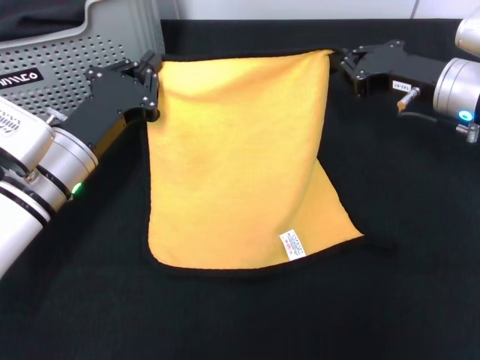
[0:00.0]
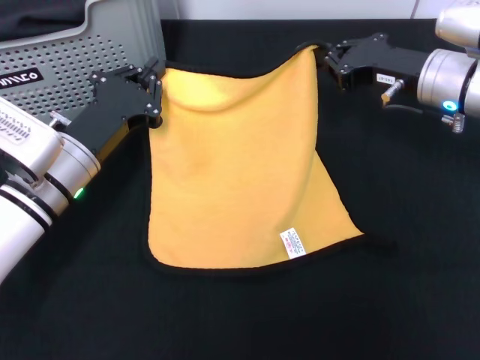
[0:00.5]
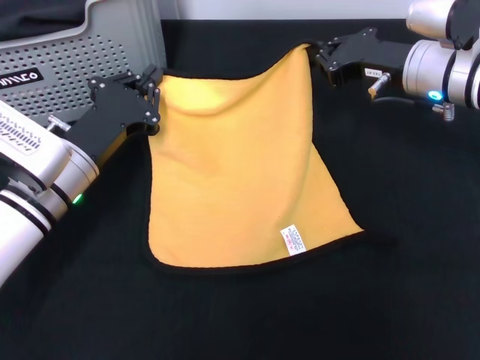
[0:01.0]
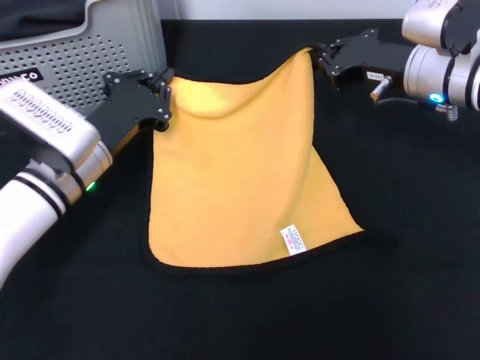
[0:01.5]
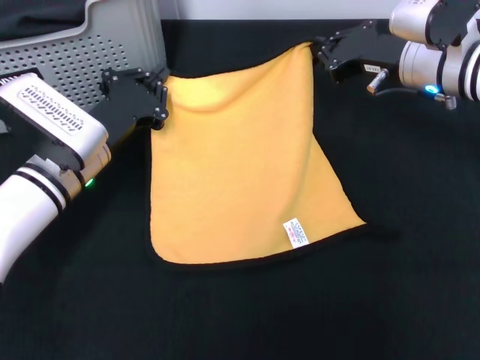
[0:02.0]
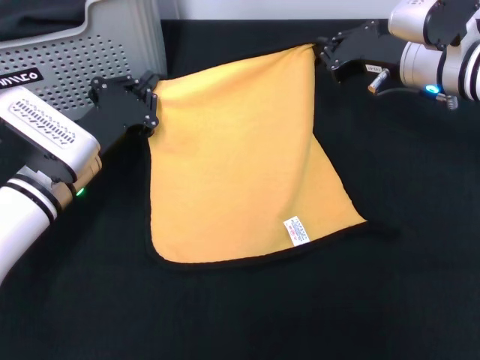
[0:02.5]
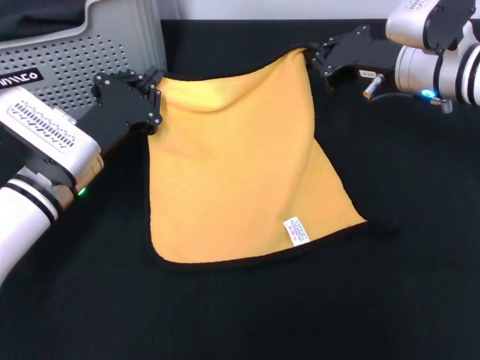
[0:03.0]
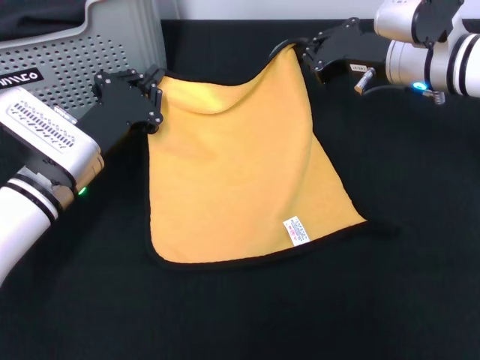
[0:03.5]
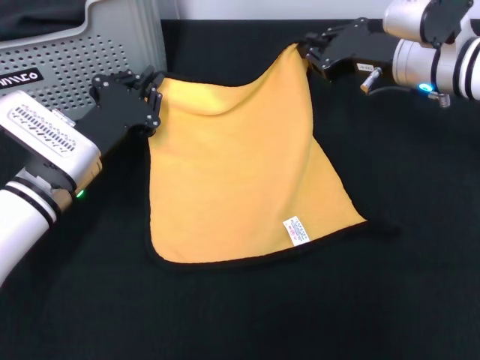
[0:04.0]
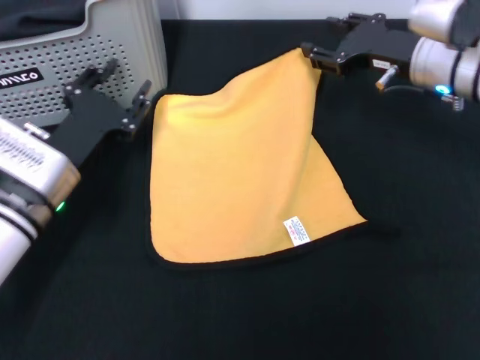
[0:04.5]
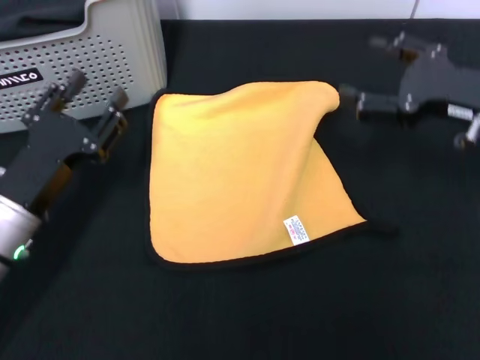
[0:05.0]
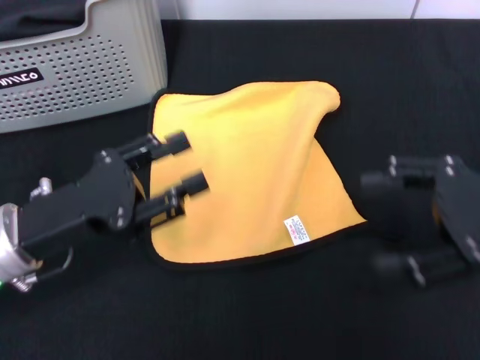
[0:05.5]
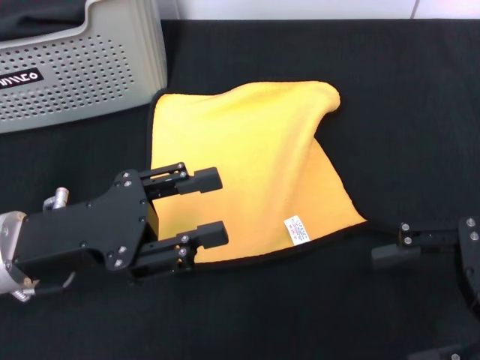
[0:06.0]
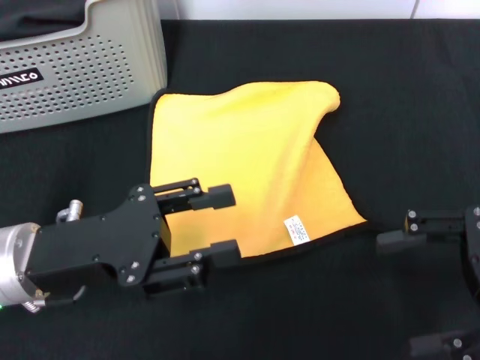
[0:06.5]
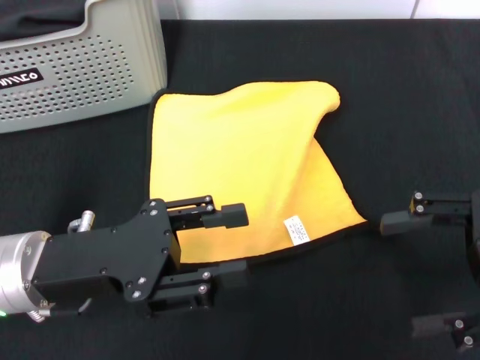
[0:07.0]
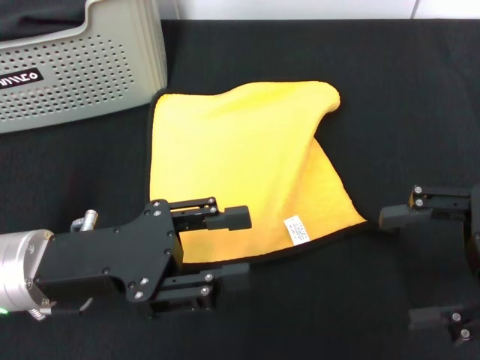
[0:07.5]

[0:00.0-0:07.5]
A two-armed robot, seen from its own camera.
Task of the whole recording: pick up the towel from the storage box and lay it flat on the black tablecloth.
Step, 0.0 to 4.5 s: Spread the towel flat with the right gripper.
2.0 to 4.0 s: The grippers move only a little.
4.0 to 5.5 s: The left gripper is displaced backward by some 10 cm, and opens its fingers. Meanwhile the right gripper shifts roughly 20 cm backward and to the right, and opens.

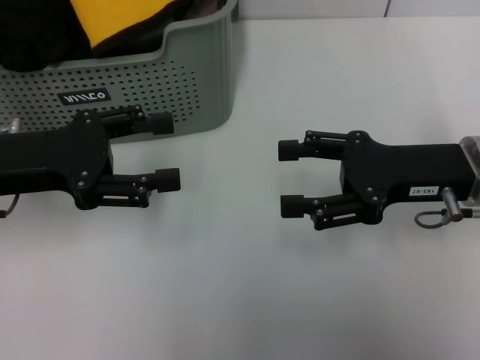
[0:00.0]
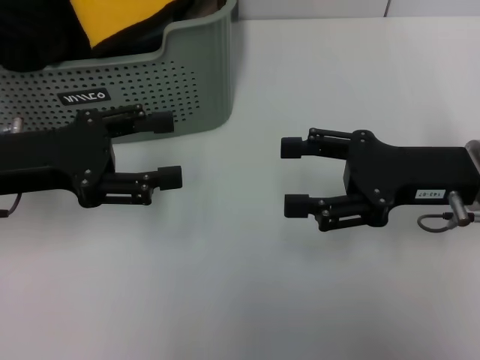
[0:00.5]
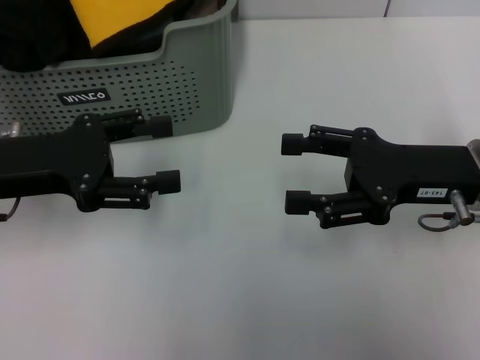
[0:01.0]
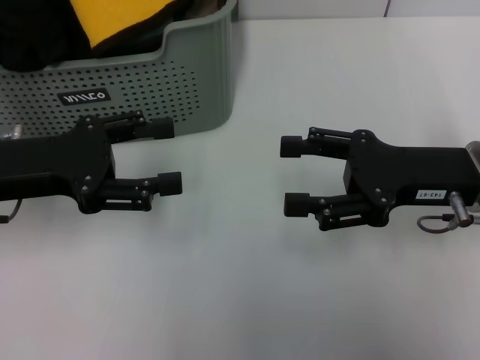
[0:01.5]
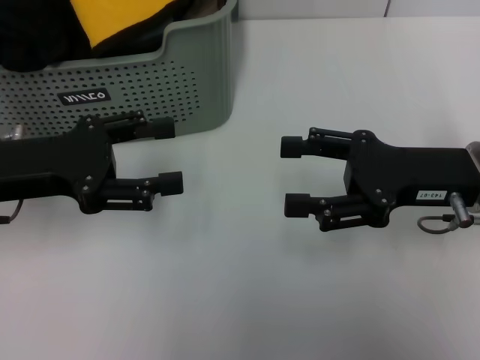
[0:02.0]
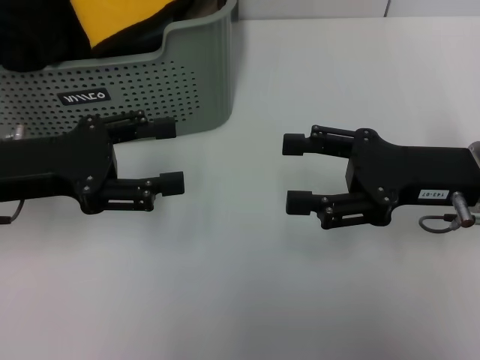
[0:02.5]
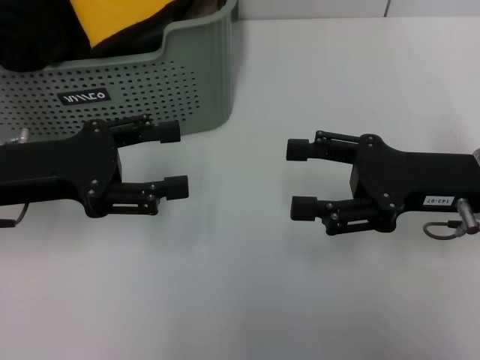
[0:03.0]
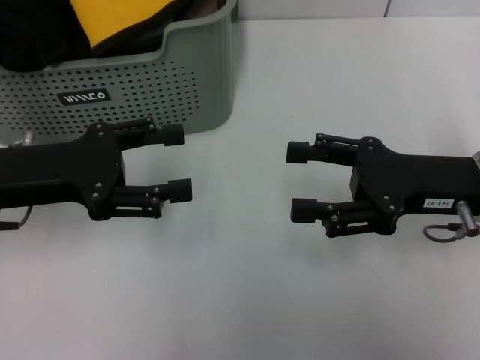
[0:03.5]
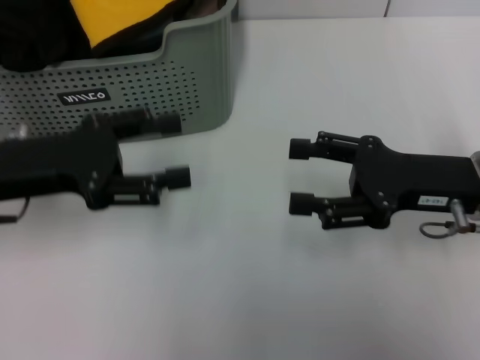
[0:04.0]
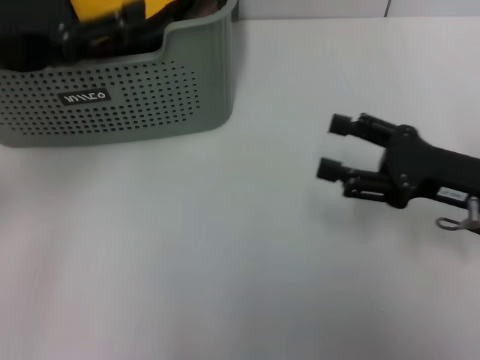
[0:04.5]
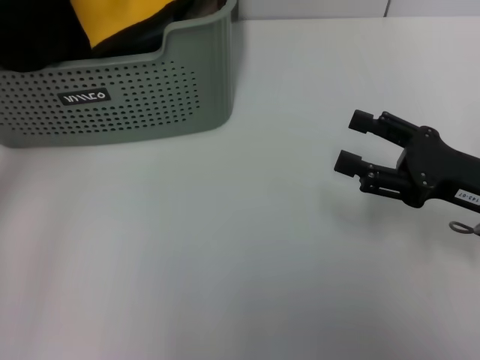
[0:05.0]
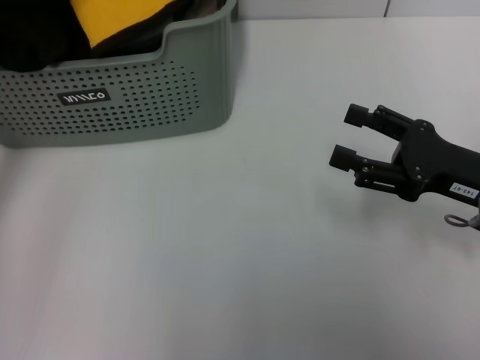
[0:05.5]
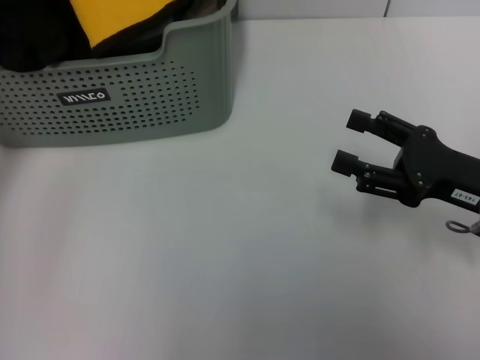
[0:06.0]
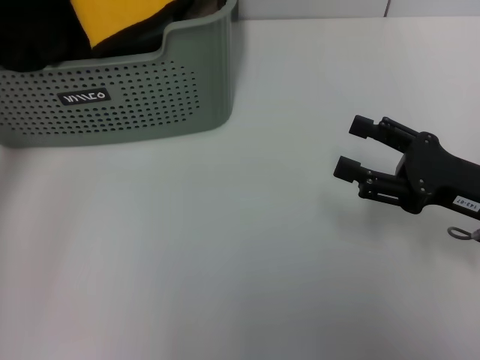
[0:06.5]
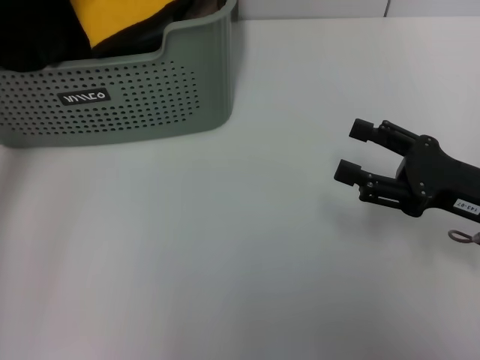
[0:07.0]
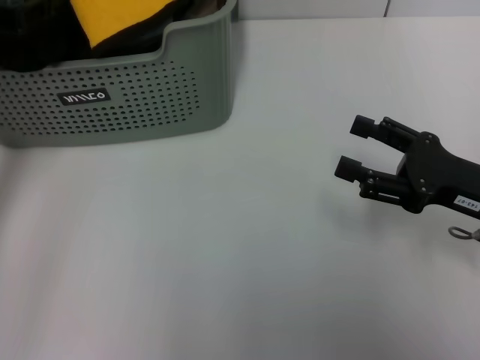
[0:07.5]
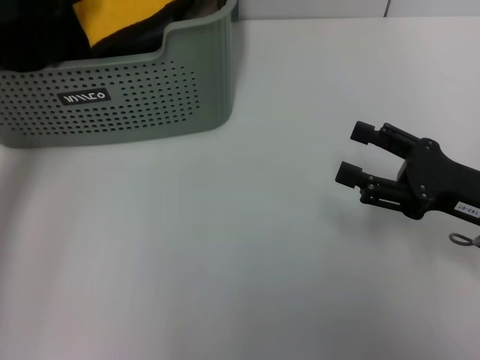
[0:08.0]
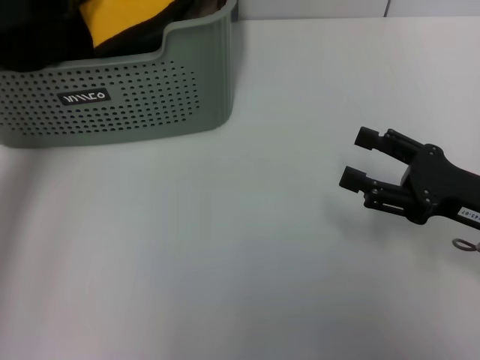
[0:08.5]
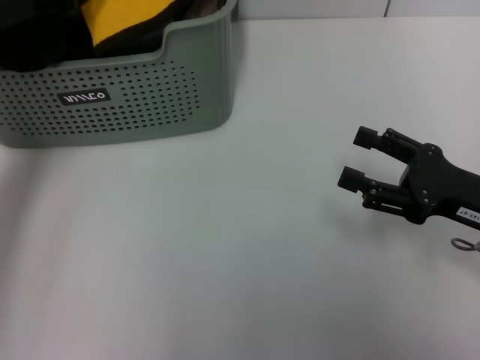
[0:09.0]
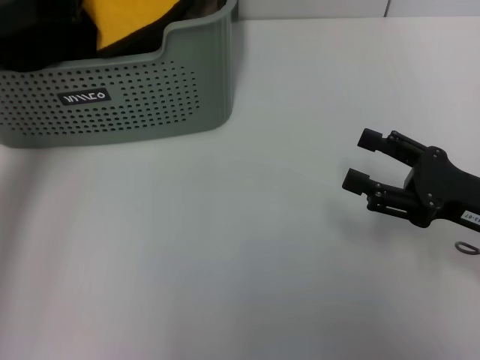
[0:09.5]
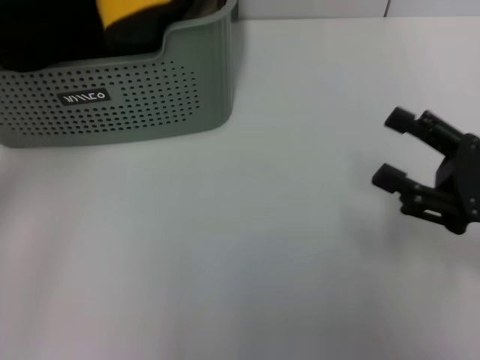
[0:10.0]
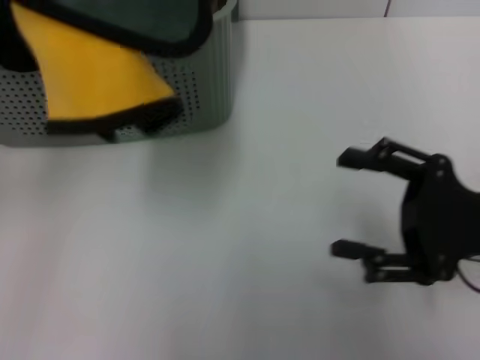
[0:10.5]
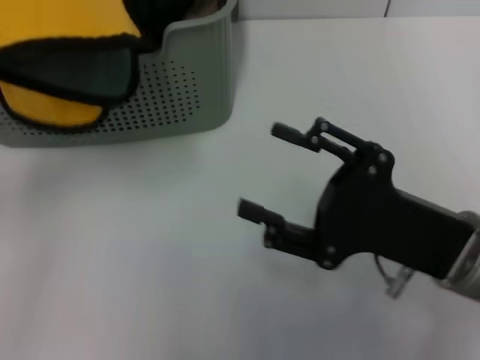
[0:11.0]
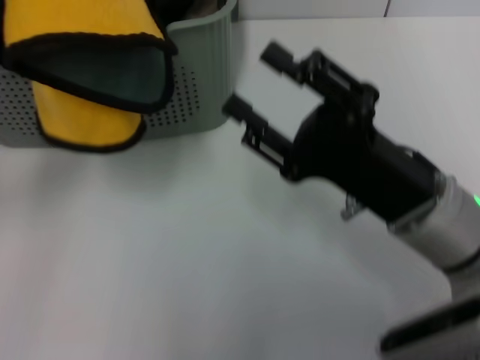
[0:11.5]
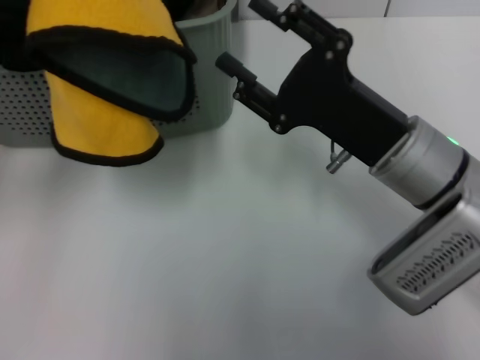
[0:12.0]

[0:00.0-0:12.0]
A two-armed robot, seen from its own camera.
Task of the whole recording: pick up the towel from the storage box and lay it flat on the table.
Step, 0.0 to 9.5 s: Pick up a towel with the left gripper.
0.0 to 2.0 s: Both grippers stay about where they are.
2.0 to 4.0 s: Both grippers stay put.
4.0 to 6.0 s: The left gripper travels upward and forward by some 10 cm.
6.0 to 8.0 s: The grippers stay close to where they were, moving slightly.
8.0 to 10.0 s: The left gripper closes.
10.0 to 12.0 s: The right gripper goes some 15 cm to the left.

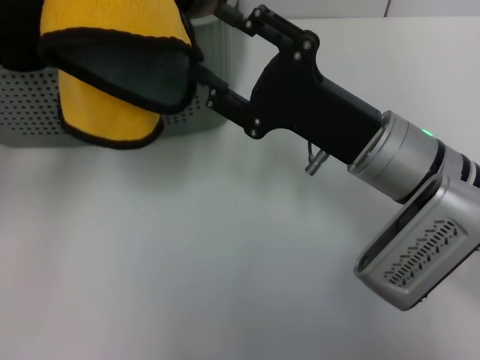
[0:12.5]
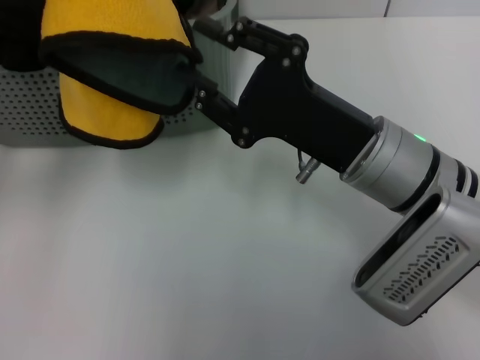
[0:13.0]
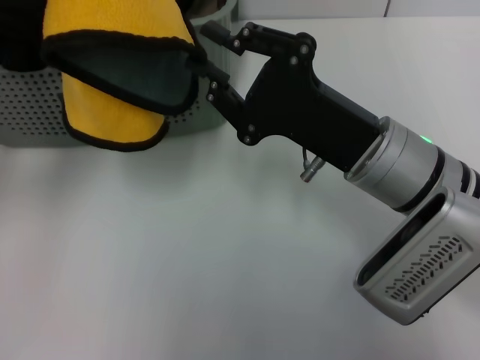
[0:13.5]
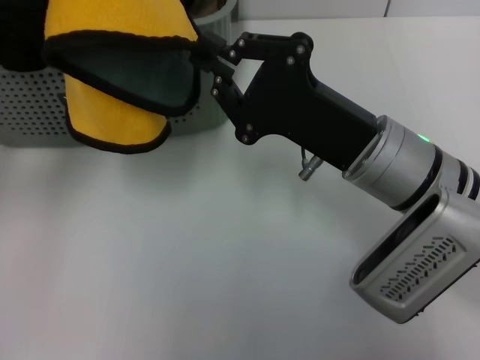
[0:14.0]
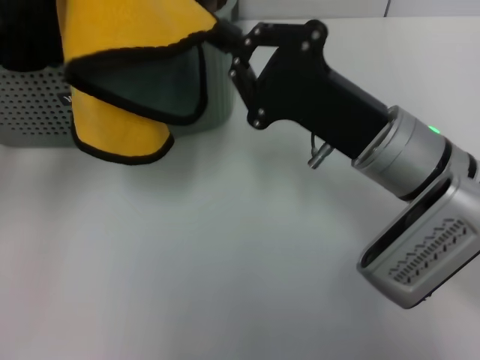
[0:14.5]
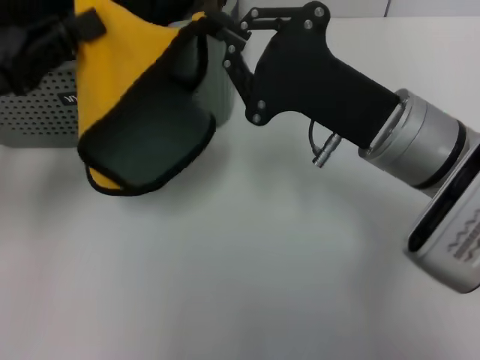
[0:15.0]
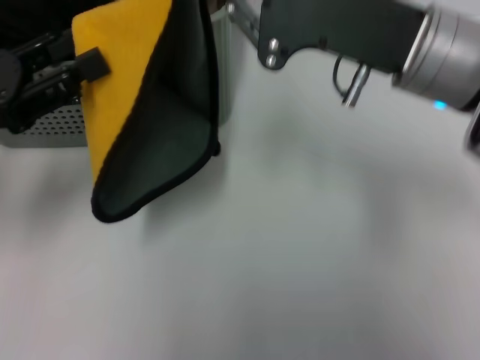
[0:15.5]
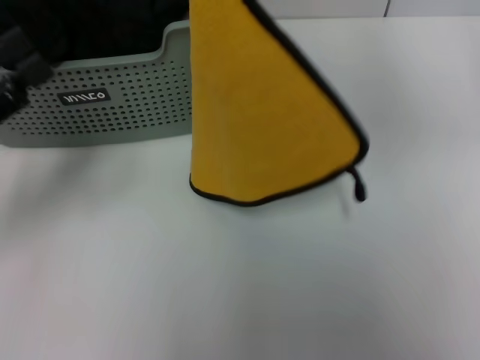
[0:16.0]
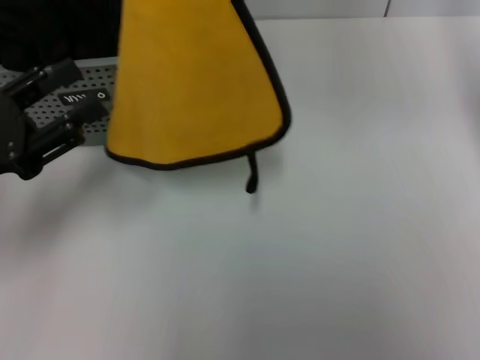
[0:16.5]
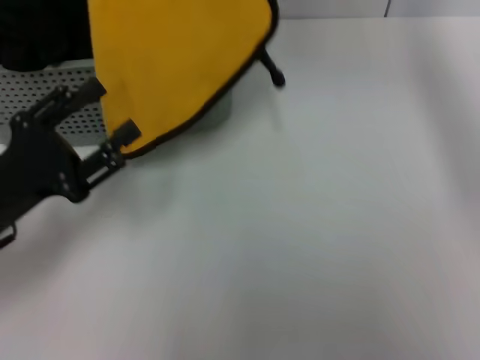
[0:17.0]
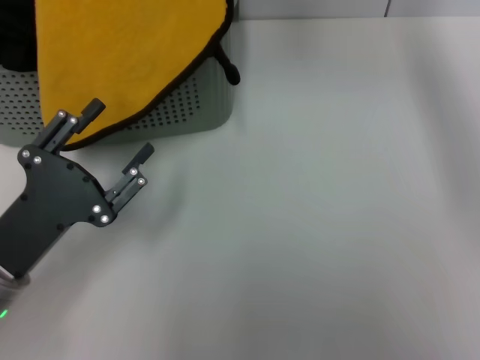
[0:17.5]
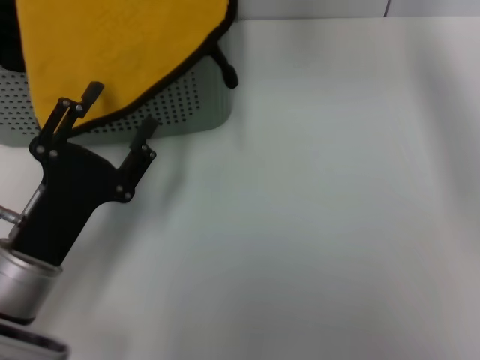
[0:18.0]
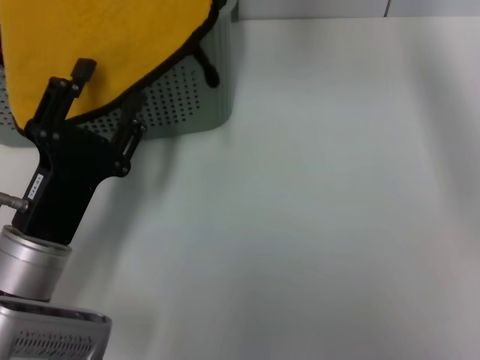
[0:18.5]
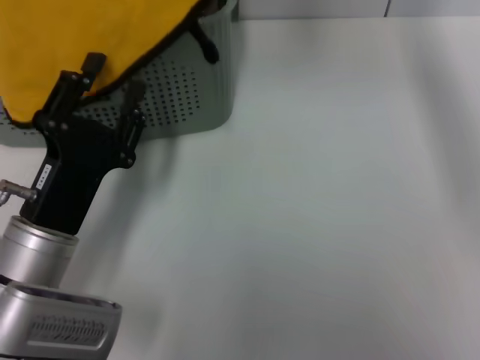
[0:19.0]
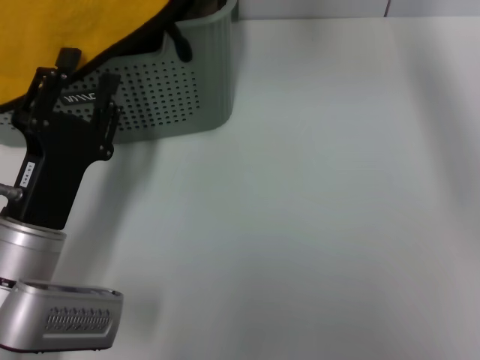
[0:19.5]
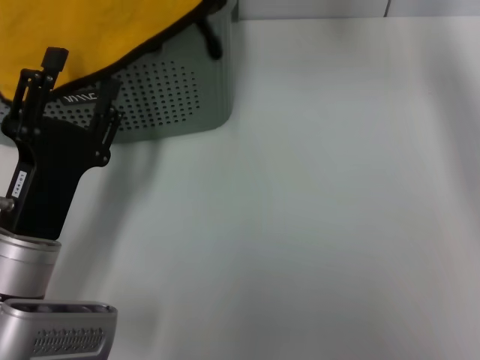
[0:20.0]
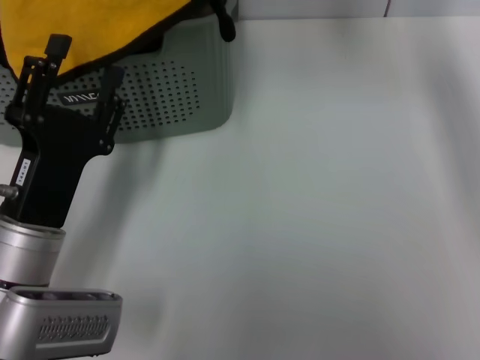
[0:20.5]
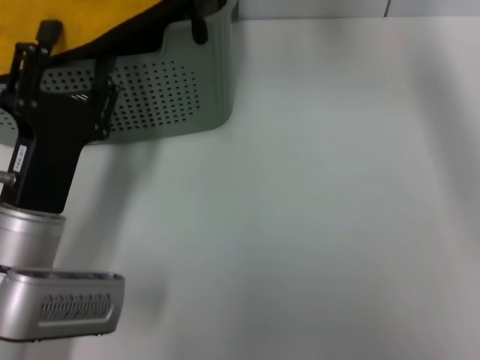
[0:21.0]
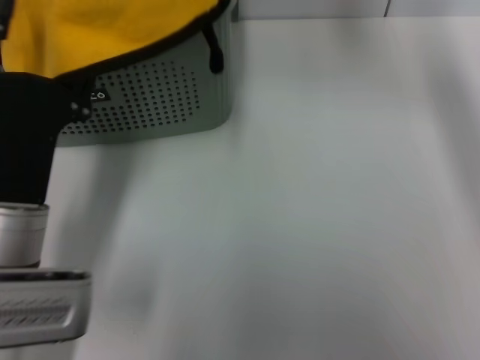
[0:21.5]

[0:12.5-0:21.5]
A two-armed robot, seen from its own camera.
Task of the whole recording: pick up the towel from the storage box and lay it flat on the table.
12.5 to 14.5 s: The right gripper closes.
14.5 to 17.0 s: The left gripper moves downward and backward, some 15 cm, and opens up; the right gripper shifts approximately 30 cm upward and forward.
17.0 to 19.5 s: The left gripper heads to the right, covering some 10 cm.
19.5 to 21.5 s: The right gripper changes place by some 5 cm.
